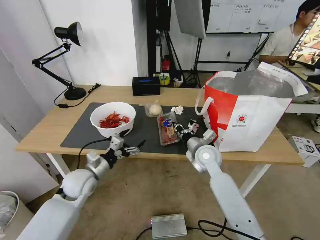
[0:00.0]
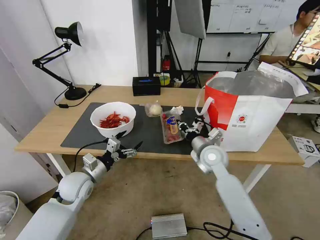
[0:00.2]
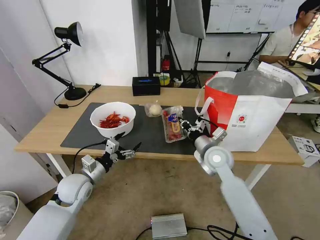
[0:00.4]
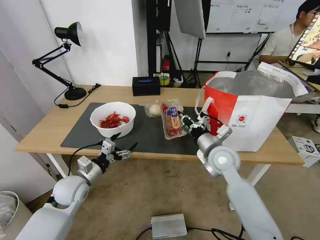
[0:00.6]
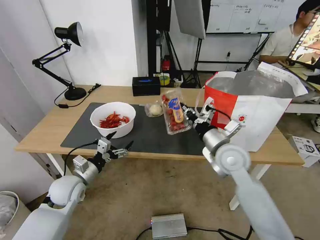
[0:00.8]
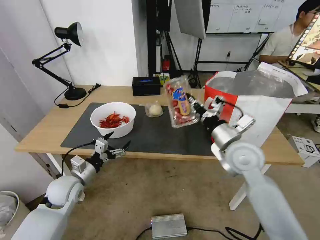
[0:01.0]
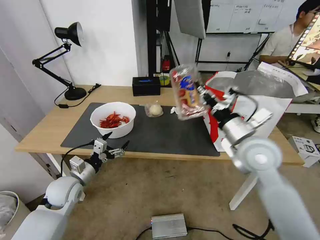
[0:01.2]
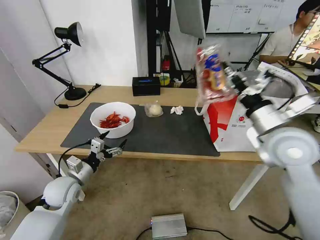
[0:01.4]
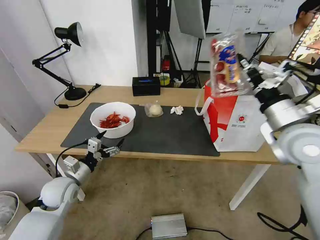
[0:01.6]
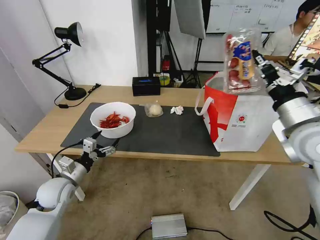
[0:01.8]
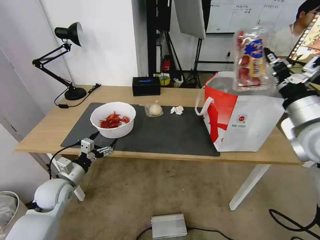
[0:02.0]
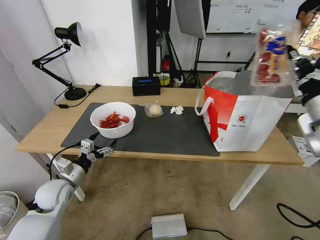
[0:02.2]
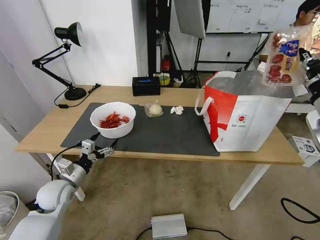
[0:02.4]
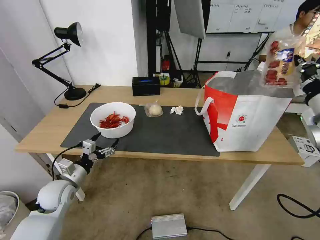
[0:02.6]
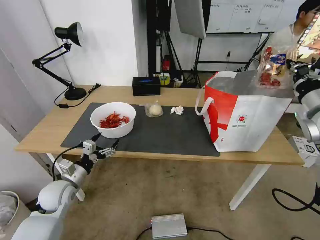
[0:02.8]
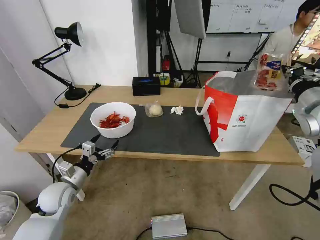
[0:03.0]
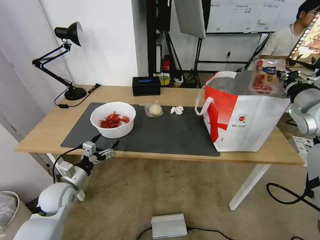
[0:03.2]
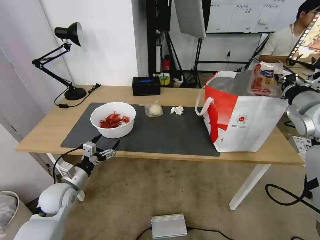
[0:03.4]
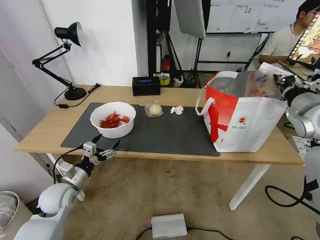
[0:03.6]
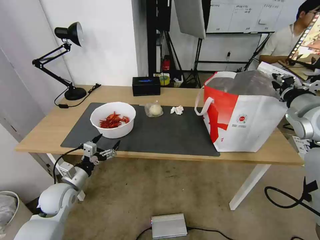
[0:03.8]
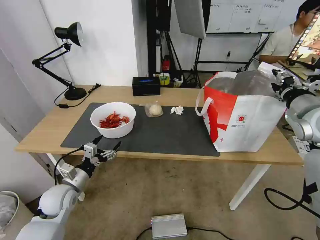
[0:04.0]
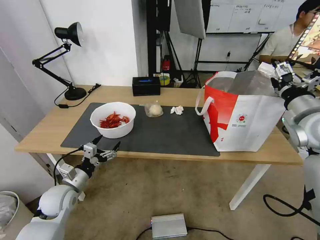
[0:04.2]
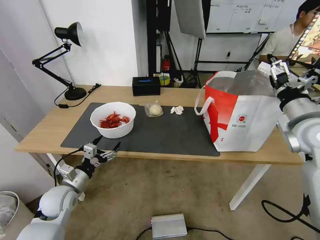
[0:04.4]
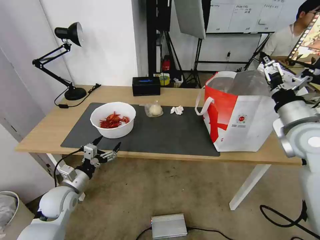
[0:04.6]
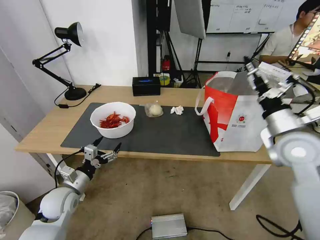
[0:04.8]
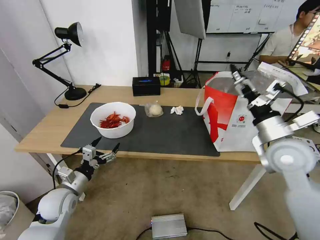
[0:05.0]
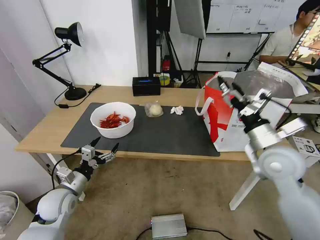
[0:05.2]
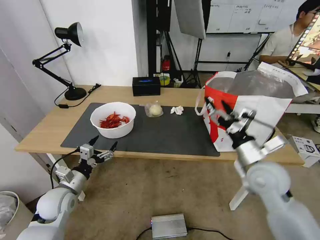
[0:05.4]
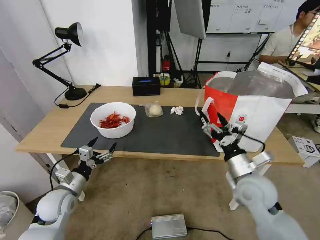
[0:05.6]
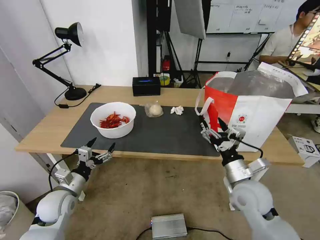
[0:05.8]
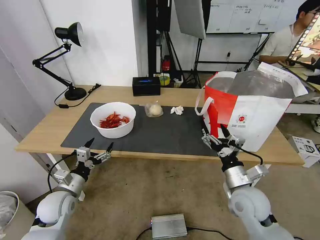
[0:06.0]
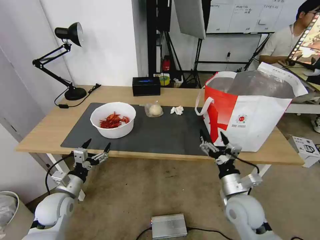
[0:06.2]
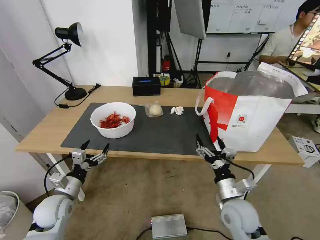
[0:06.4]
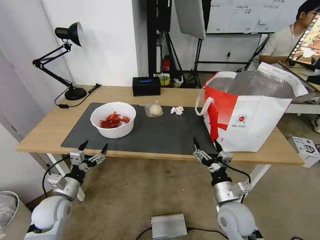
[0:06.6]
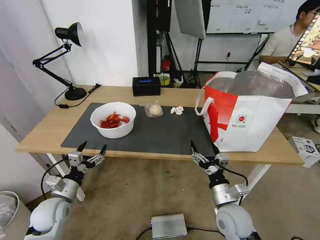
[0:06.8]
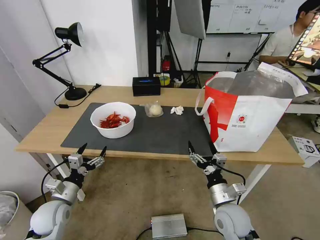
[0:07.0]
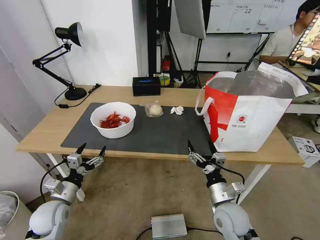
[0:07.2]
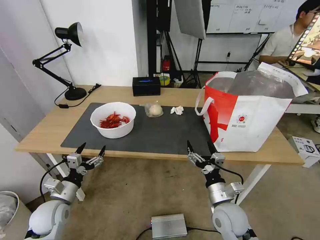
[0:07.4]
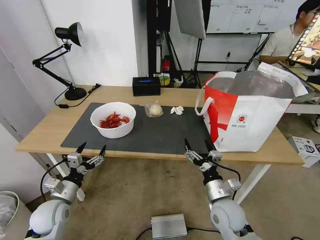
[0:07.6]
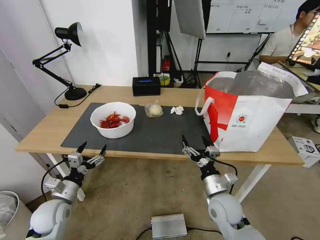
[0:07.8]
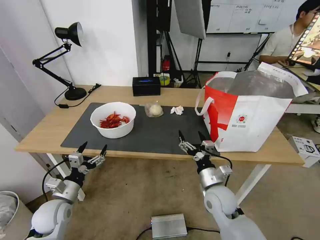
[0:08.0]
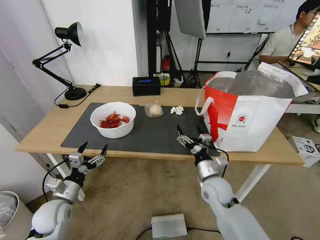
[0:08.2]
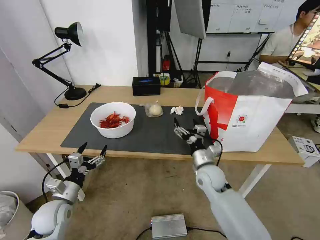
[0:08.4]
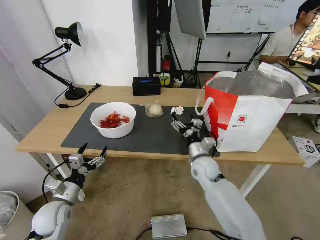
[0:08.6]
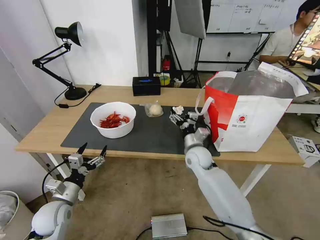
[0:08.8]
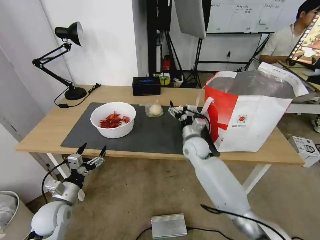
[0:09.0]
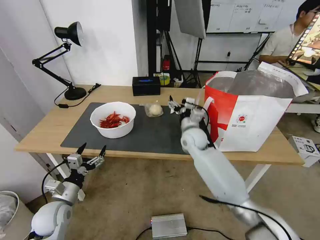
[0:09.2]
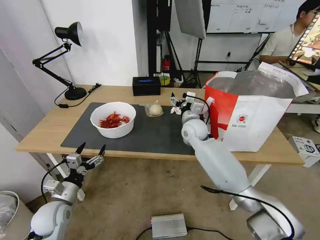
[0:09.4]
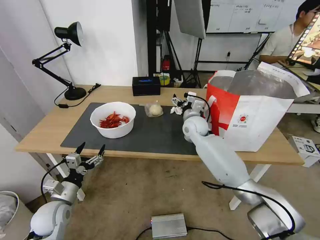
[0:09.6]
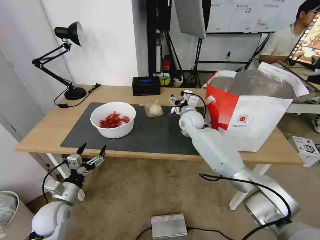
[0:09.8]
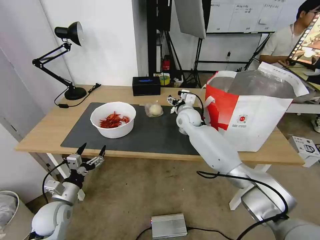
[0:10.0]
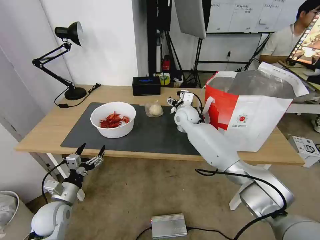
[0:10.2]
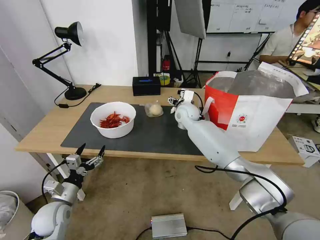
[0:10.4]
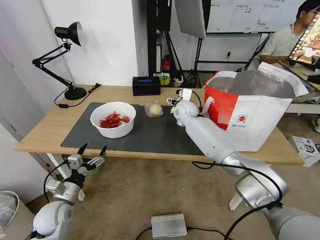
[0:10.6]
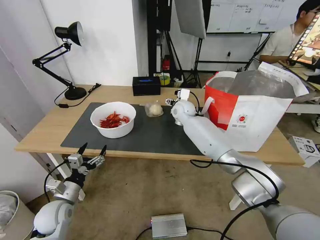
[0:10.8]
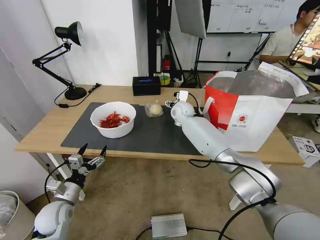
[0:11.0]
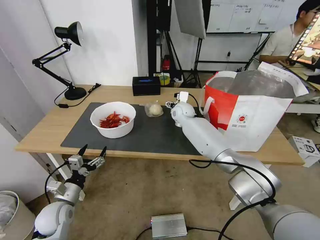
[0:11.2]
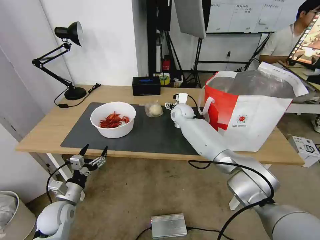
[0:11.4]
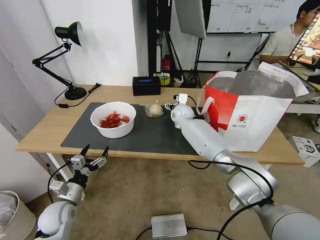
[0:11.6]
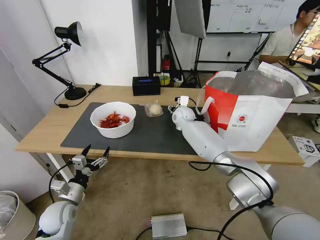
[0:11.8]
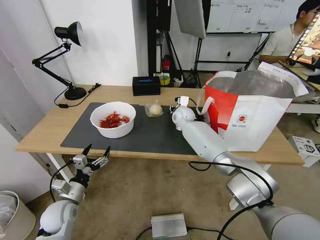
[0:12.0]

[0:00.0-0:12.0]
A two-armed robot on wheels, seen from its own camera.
Task of the whole recording: Pick up the trash from the table and place it into the takeout bag.
0:00.0 to 0:01.6: The left gripper travels to the left by roughly 5 cm; the right gripper travels upward, to the right and backward by approximately 25 cm.
0:01.6 to 0:03.0: The right gripper shifts some 10 cm to the right and forward.
0:03.0 to 0:04.4: The right gripper ends up some 5 cm from where it was, and opens its fingers.
0:04.4 to 0:06.0: The right gripper travels downward, to the left and backward by approximately 25 cm.
0:06.0 to 0:07.6: The right gripper shifts about 10 cm downward and to the left.
0:07.6 to 0:09.0: The right gripper shifts some 20 cm forward.
0:09.0 to 0:10.4: The right gripper is displaced forward and upward by roughly 15 cm.
0:10.4 to 0:12.0: The right gripper changes place by about 5 cm, and closes.

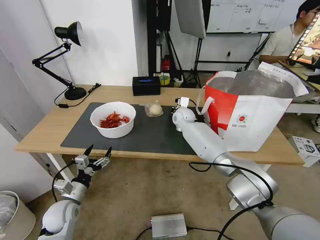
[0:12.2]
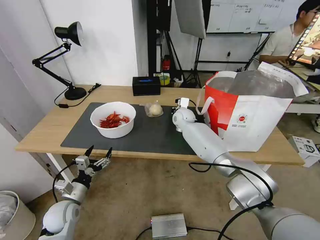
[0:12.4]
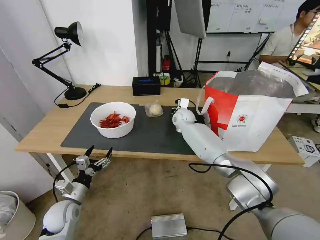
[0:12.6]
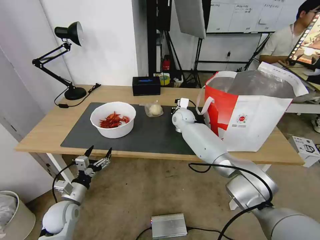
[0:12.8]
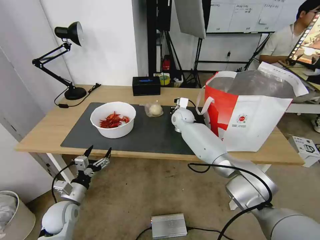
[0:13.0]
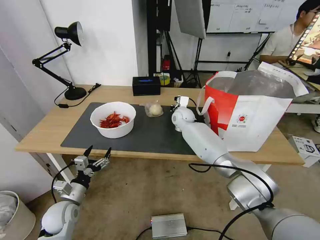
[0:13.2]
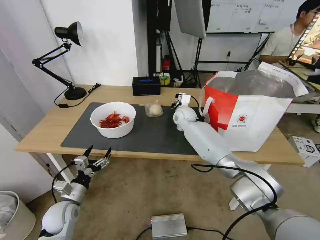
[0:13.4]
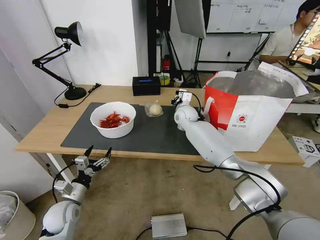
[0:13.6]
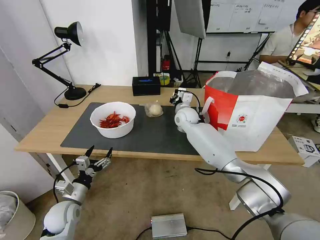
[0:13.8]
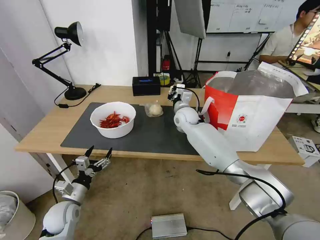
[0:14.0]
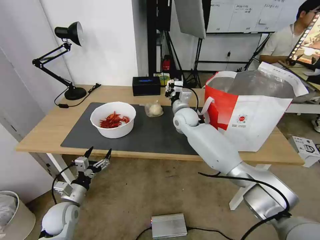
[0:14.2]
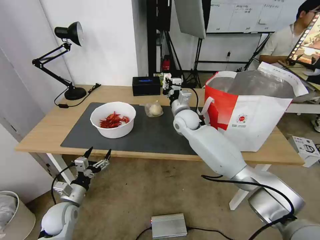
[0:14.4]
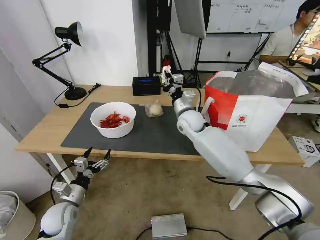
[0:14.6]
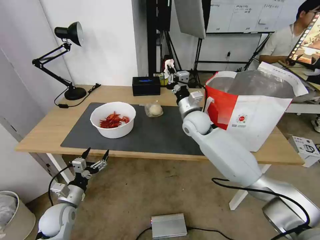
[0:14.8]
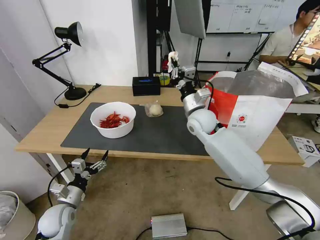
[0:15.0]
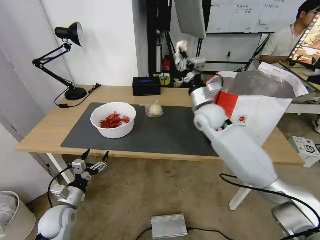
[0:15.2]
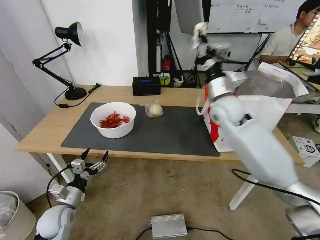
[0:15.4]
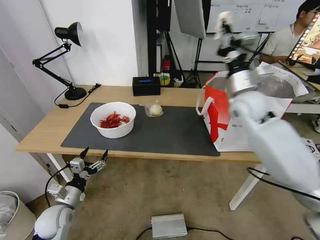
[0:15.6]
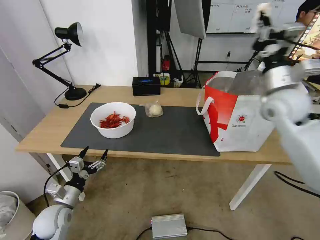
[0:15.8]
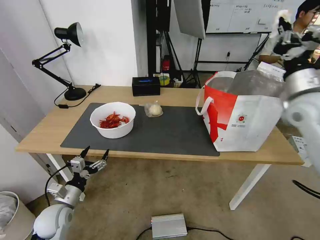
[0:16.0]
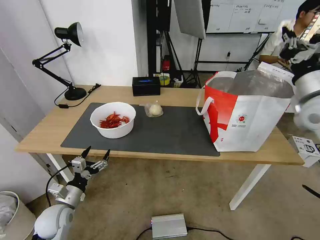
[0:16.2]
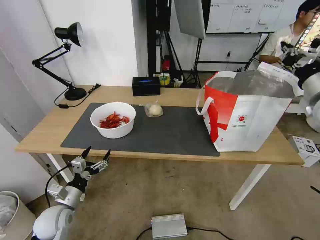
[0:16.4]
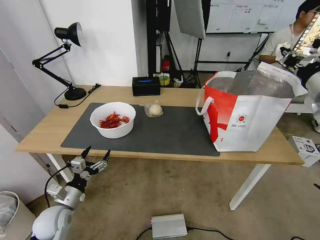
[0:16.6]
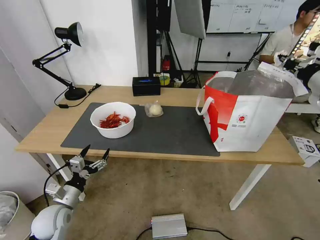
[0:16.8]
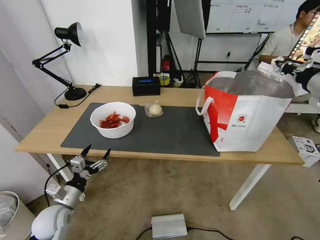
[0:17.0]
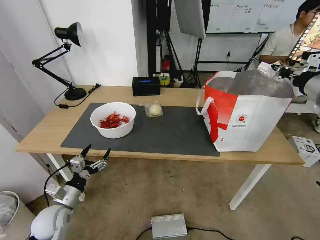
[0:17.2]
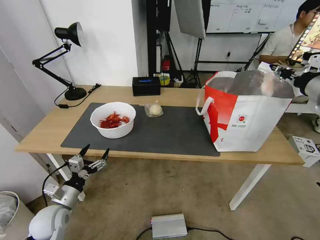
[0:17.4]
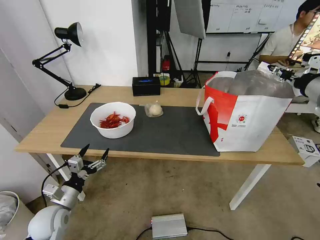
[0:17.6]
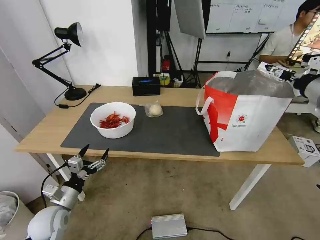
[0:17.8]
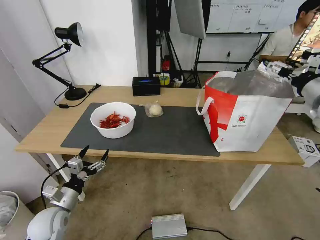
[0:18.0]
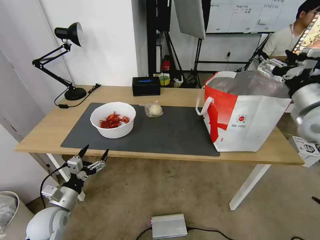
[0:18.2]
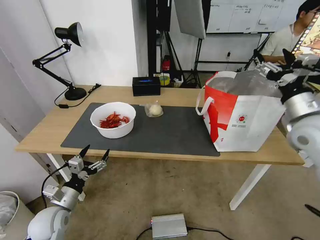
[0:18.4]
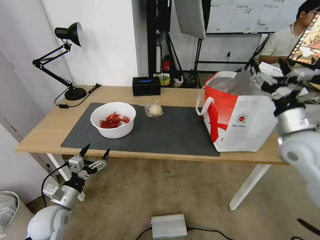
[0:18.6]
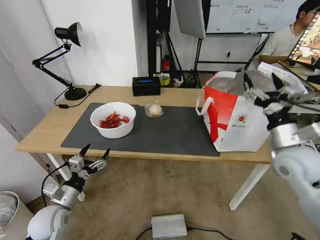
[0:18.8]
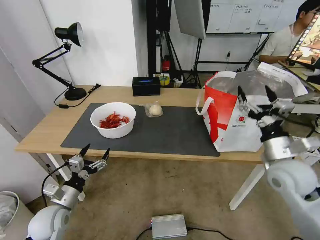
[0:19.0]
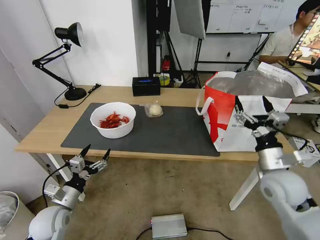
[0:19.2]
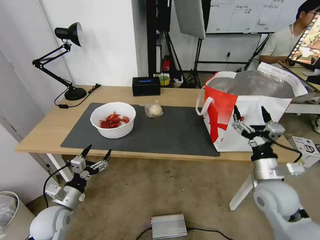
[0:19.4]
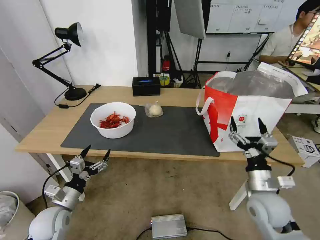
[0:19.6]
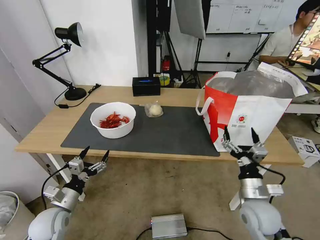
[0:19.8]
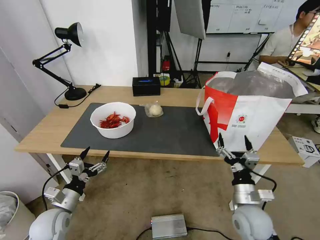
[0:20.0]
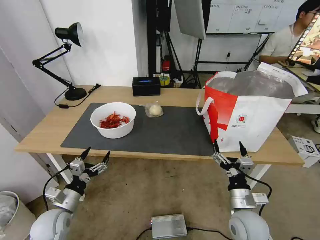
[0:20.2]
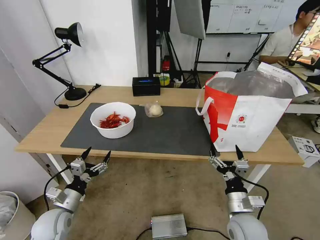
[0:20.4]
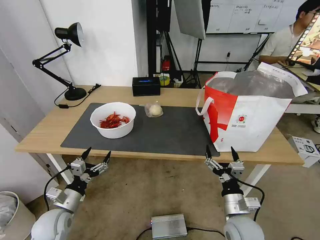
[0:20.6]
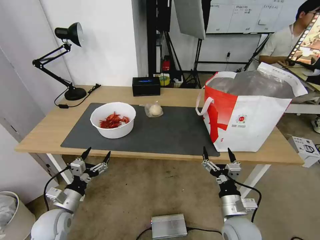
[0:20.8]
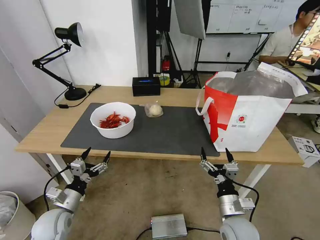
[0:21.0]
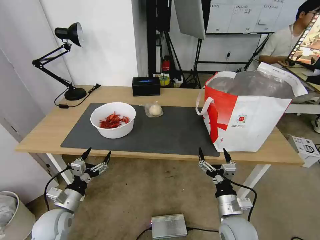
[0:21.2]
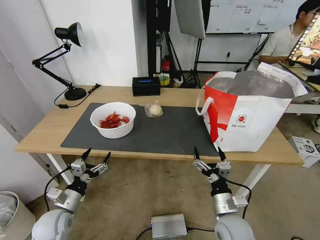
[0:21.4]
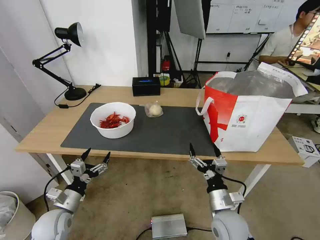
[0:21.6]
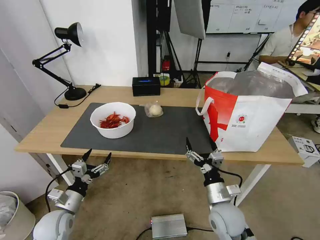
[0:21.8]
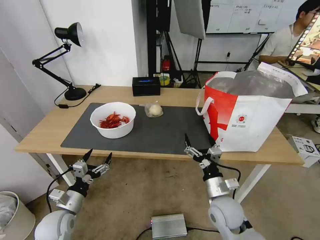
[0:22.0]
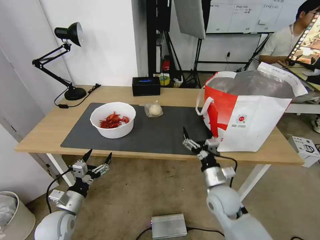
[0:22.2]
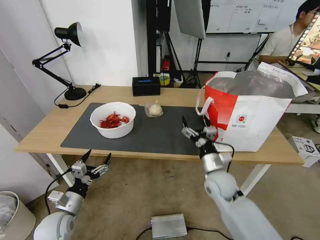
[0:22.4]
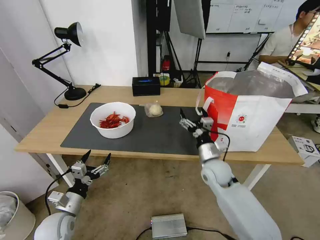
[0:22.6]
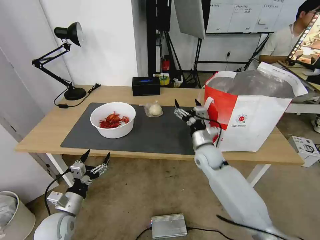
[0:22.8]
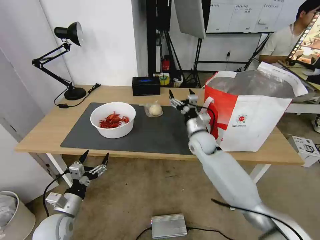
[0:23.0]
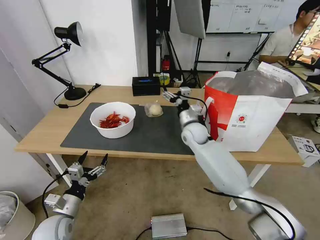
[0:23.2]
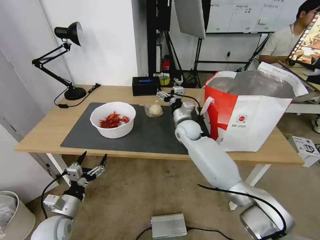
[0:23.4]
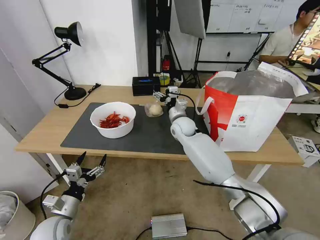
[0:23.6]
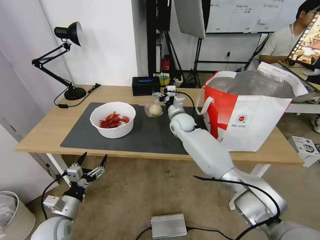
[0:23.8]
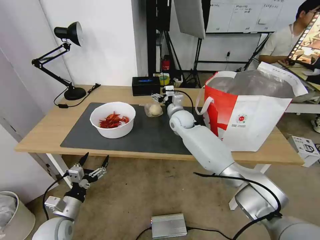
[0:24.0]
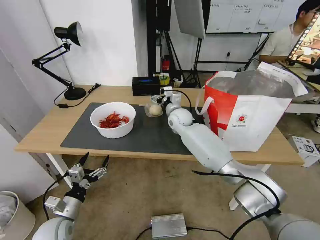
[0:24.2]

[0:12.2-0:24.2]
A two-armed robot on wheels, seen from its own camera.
Task of the whole recording: Pick up the trash from the table and place it into the takeout bag.
0:12.2 to 0:13.8: The grippers make only small movements.
0:13.8 to 0:15.2: The right gripper shifts roughly 15 cm backward, upward and to the right.
0:15.2 to 0:16.6: The right gripper moves to the right, upward and backward, about 30 cm.
0:16.6 to 0:18.2: The right gripper goes about 5 cm downward, and opens.
0:18.2 to 0:19.8: The right gripper shifts about 30 cm downward, backward and to the left.
0:19.8 to 0:21.2: The right gripper shifts about 5 cm to the left.
0:21.2 to 0:22.6: The right gripper moves forward, some 20 cm.
0:22.6 to 0:24.2: The right gripper heads forward and to the left, covering roughly 25 cm.
